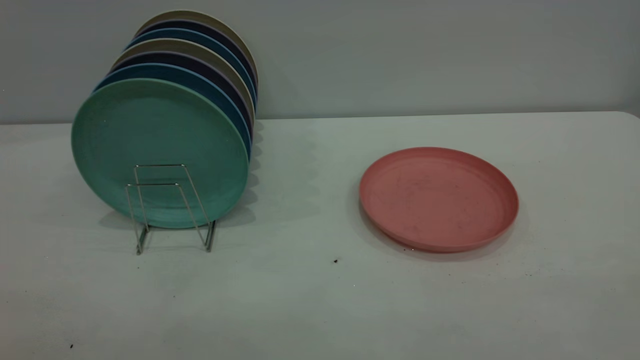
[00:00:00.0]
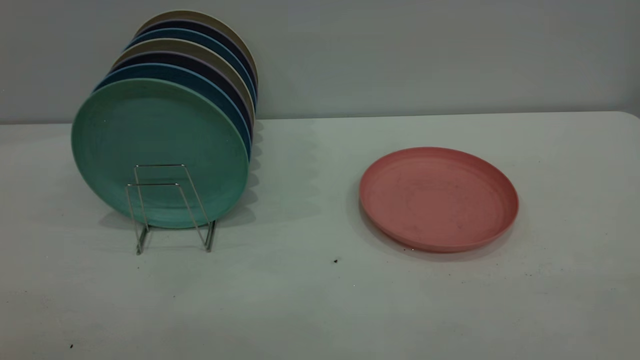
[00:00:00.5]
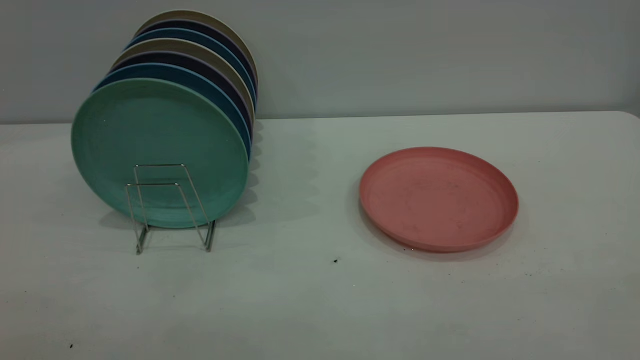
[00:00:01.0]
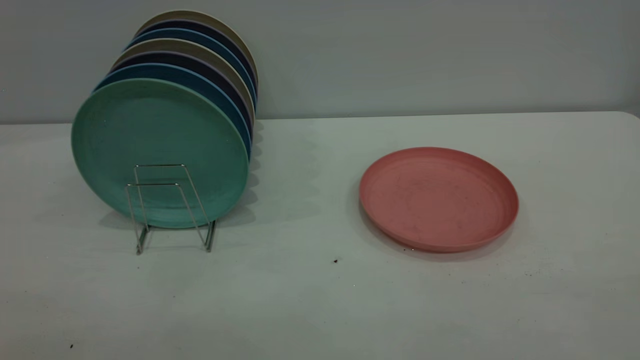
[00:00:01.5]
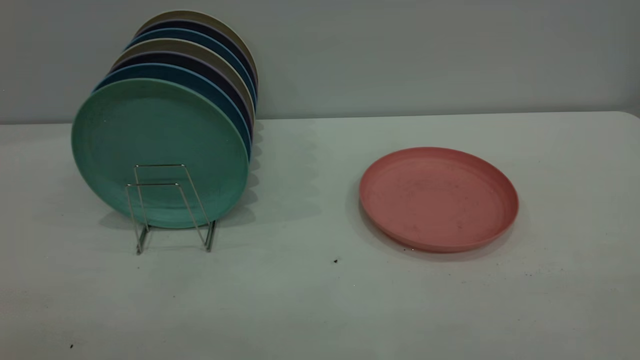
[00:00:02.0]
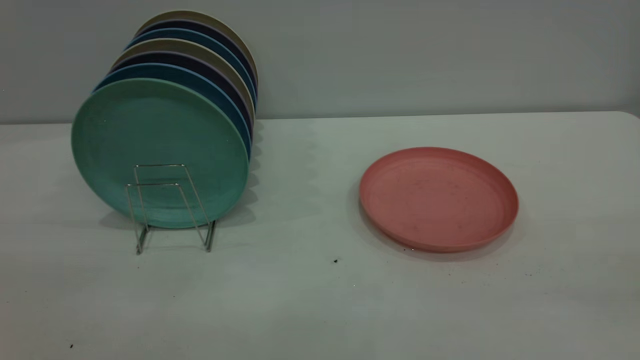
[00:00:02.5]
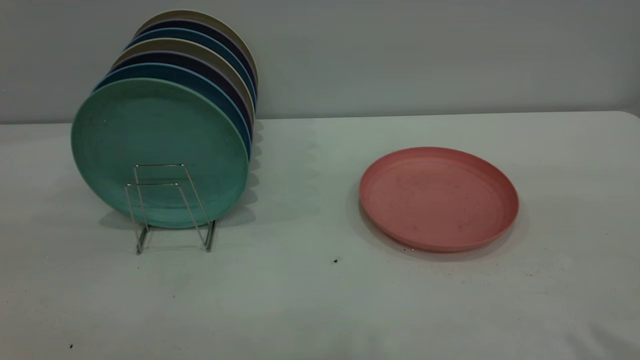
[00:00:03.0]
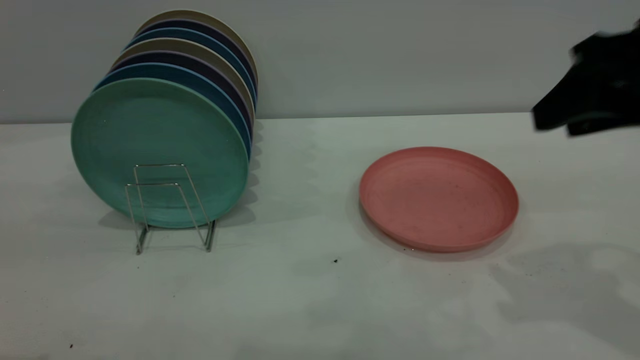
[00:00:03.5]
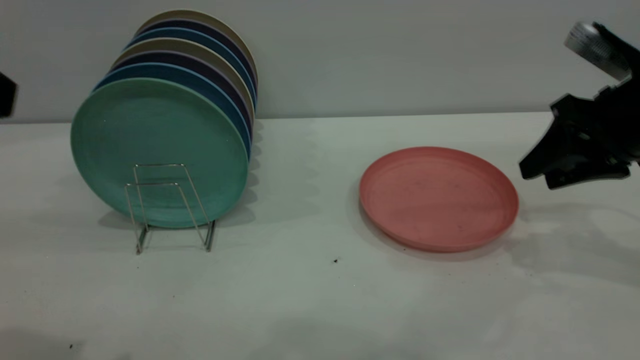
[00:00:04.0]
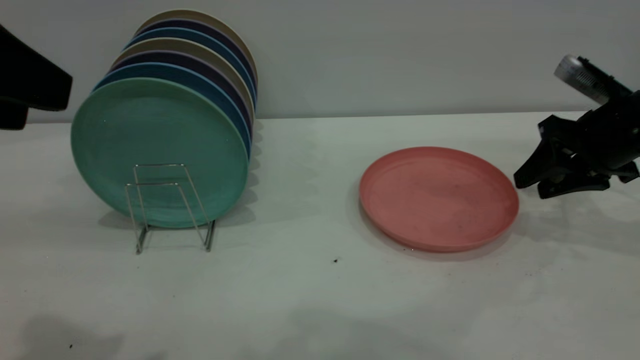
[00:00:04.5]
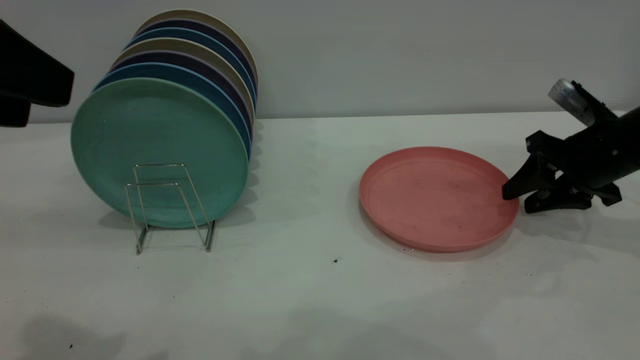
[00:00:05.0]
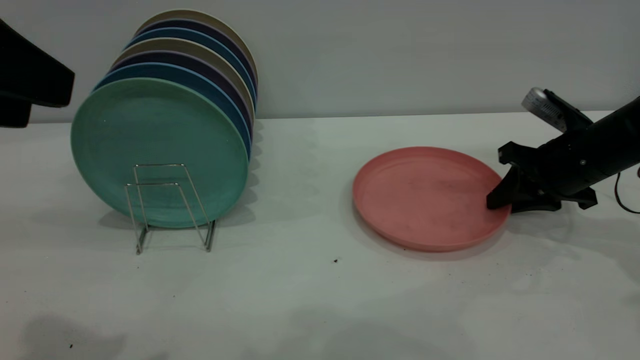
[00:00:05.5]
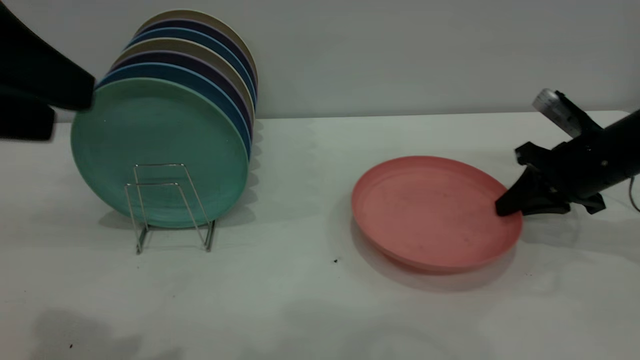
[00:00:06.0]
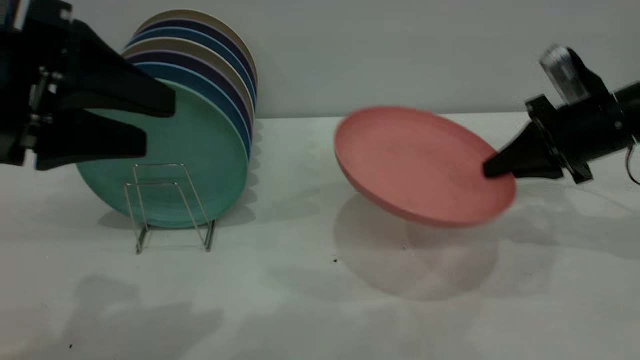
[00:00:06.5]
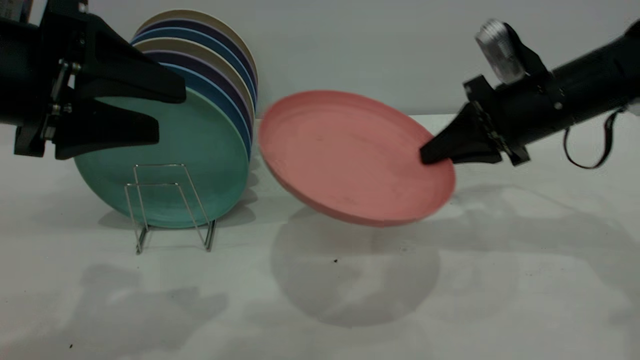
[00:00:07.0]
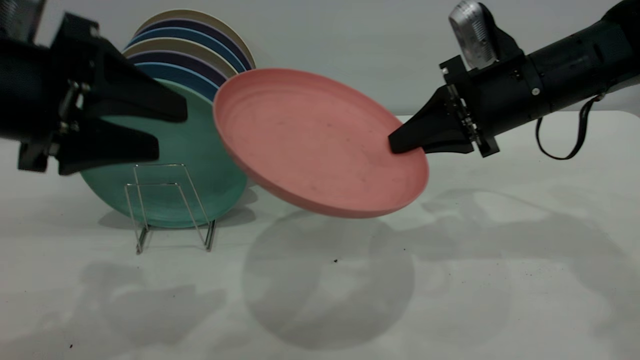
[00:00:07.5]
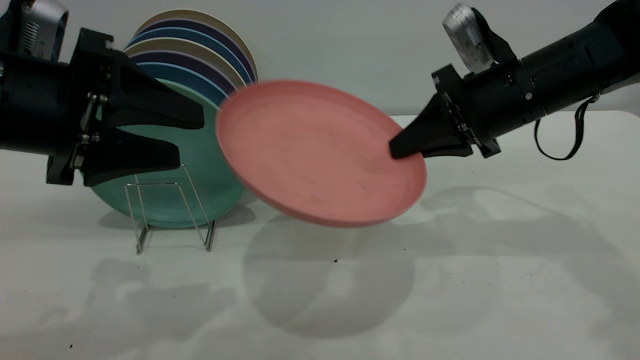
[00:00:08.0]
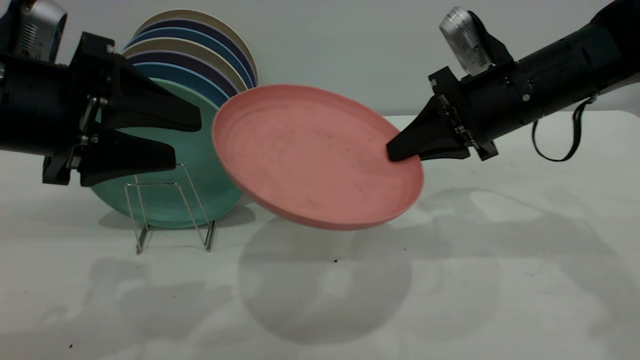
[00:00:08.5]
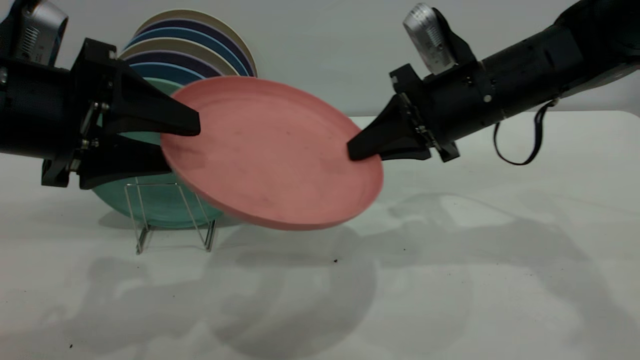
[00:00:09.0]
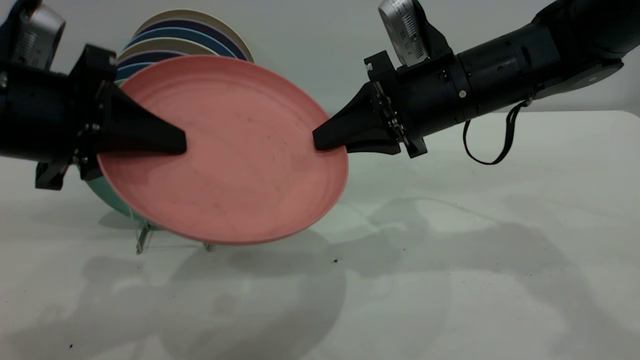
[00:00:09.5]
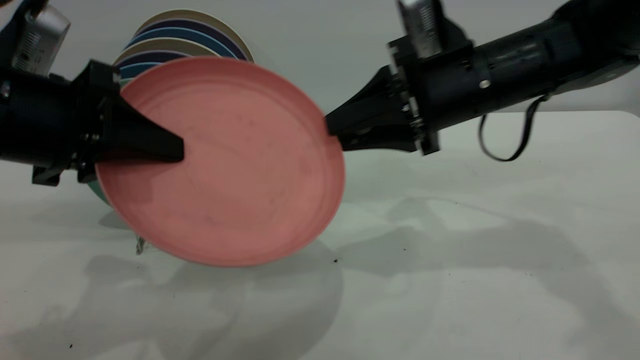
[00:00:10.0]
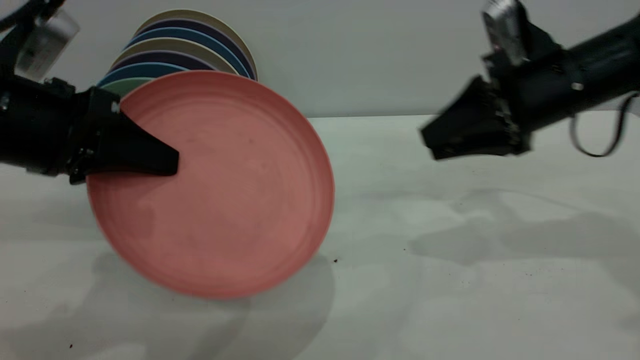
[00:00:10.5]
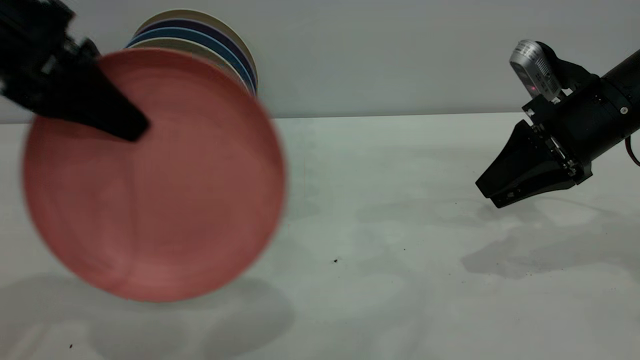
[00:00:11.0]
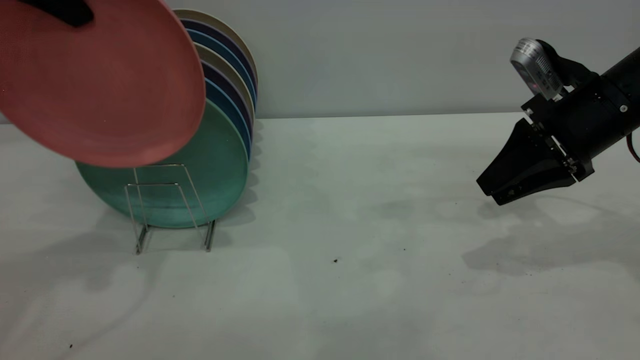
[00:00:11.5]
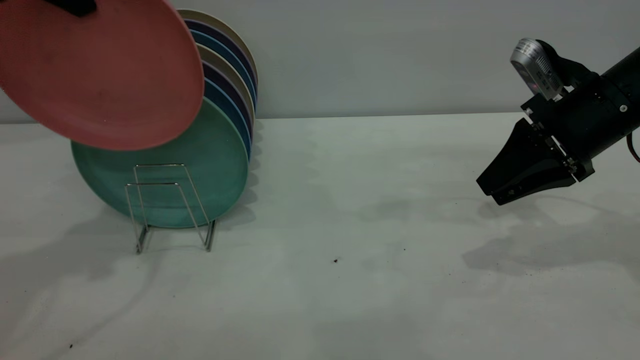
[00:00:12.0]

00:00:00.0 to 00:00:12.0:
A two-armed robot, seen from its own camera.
Task of the whole recording: the right gripper grasp the pink plate, the right gripper pass the pink plate to the left gripper, and the left gripper place the pink plate on the plate rack.
Step, 00:00:00.0 to 00:00:06.5: Pick up the plate with the right gripper.
Step, 00:00:07.0 to 00:00:10.0: Pass the plate from the right gripper to the left gripper.
00:00:02.0 to 00:00:04.0: The right gripper is displaced forward and downward by about 40 cm, and opens up.
00:00:04.0 to 00:00:06.0: The right gripper shifts approximately 10 cm downward, and closes its fingers.
00:00:06.0 to 00:00:08.0: The right gripper travels to the left and upward by about 15 cm. The left gripper travels downward and forward by about 10 cm.
00:00:08.0 to 00:00:10.0: The right gripper opens its fingers. Meanwhile the left gripper closes up.
00:00:10.0 to 00:00:12.0: The left gripper goes approximately 20 cm upward and forward; the right gripper shifts about 10 cm to the right.

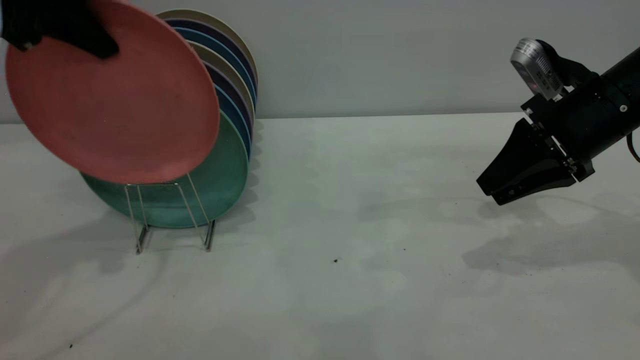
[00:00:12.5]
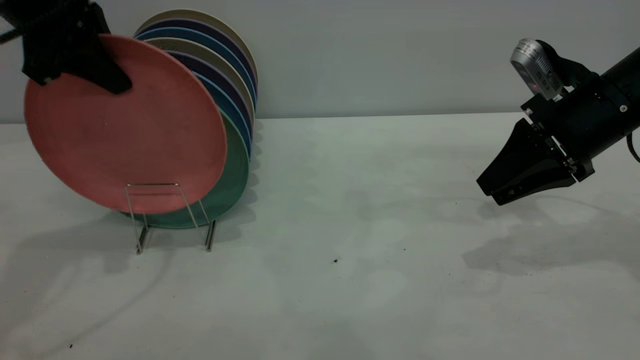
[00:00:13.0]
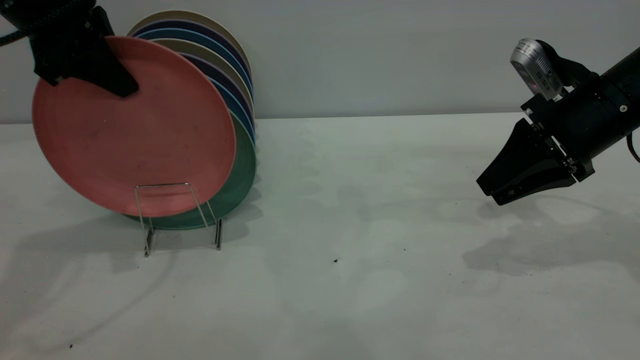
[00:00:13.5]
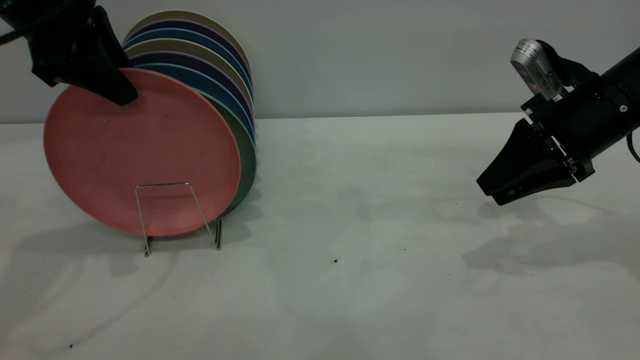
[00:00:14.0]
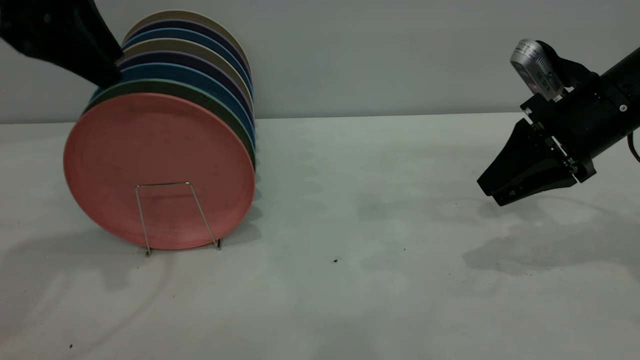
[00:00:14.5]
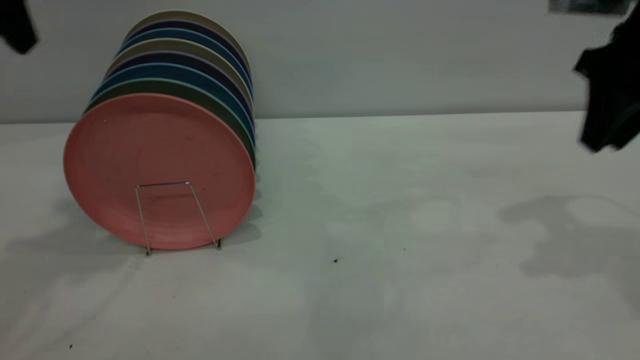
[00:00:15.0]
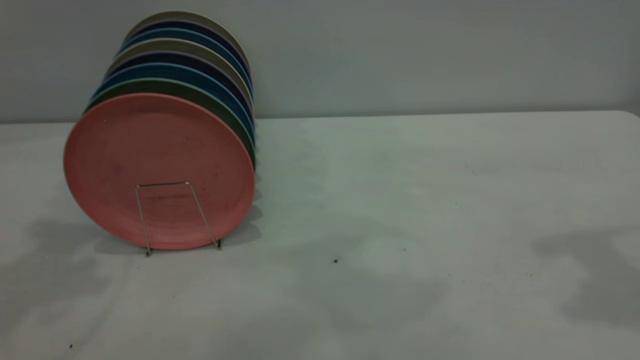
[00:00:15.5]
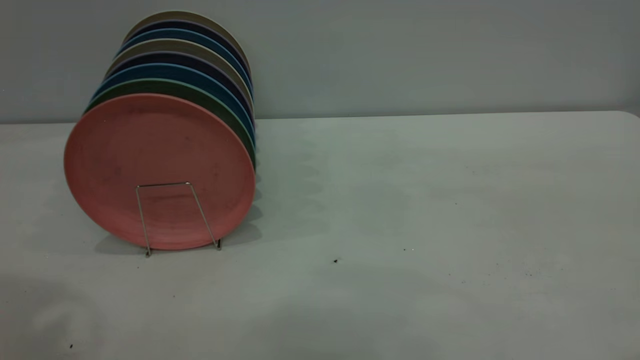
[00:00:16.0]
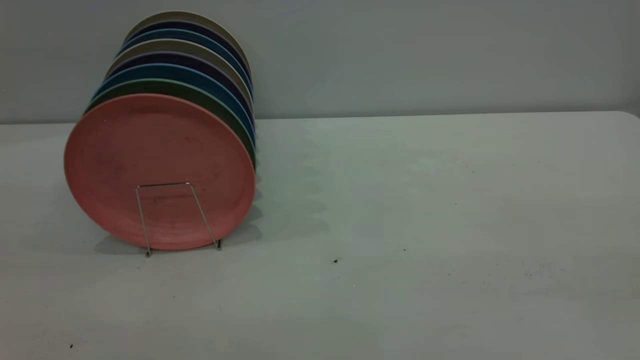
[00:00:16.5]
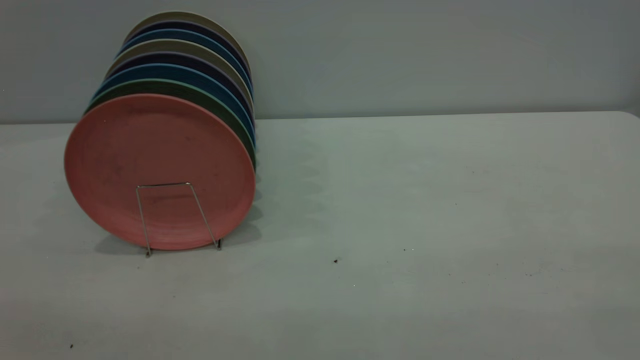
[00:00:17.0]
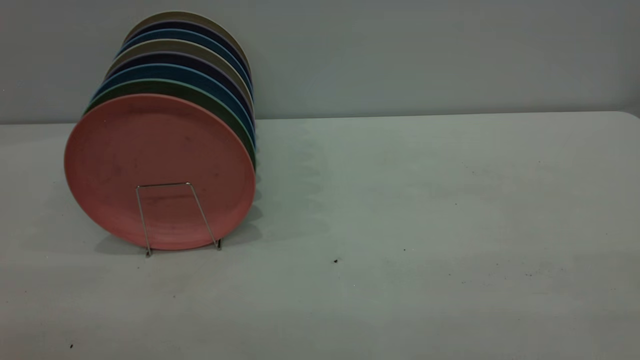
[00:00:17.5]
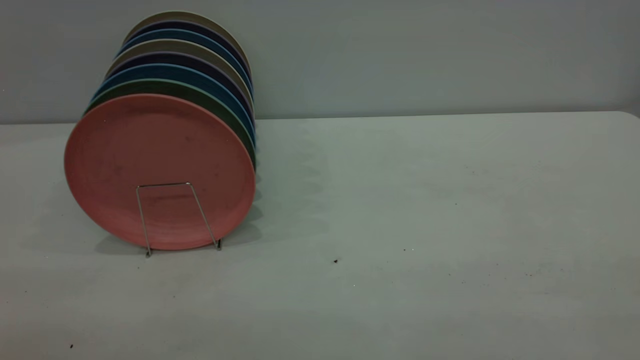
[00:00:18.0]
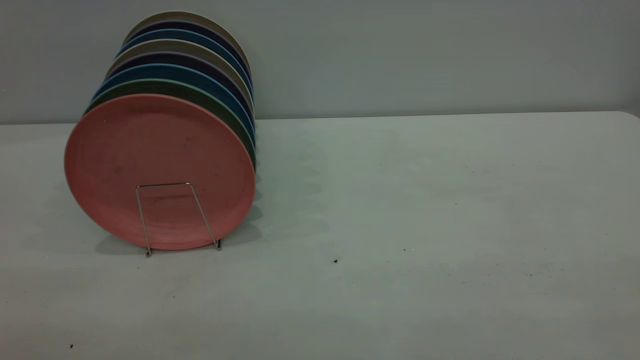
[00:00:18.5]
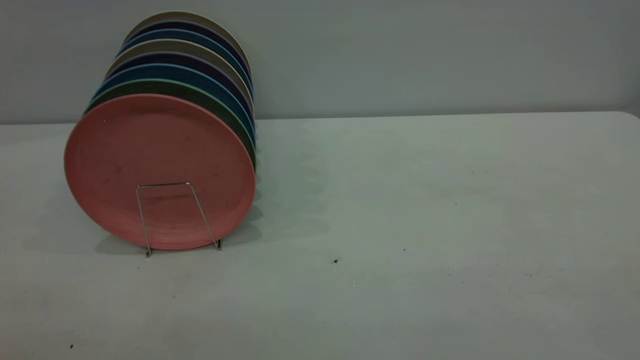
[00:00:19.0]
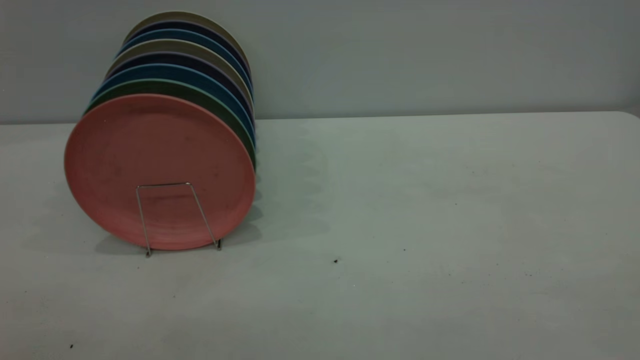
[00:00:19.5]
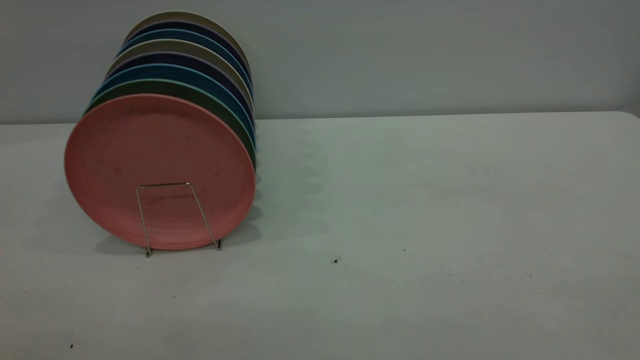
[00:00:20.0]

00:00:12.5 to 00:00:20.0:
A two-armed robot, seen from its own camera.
Task of the whole recording: the right gripper grasp the pink plate, the right gripper pass the pink plate to the left gripper, and the left gripper place the pink plate on the plate rack.
Step, 00:00:12.5 to 00:00:15.0: Place the plate on the shelf.
00:00:12.5 to 00:00:14.5: The left gripper opens its fingers.
00:00:14.5 to 00:00:16.5: The left gripper shifts approximately 30 cm backward; the right gripper goes approximately 40 cm backward and upward.
